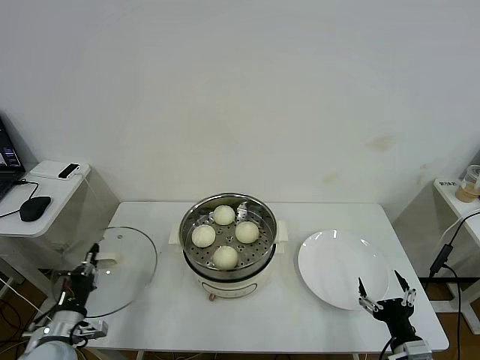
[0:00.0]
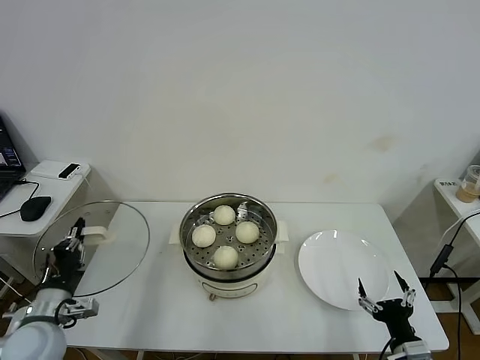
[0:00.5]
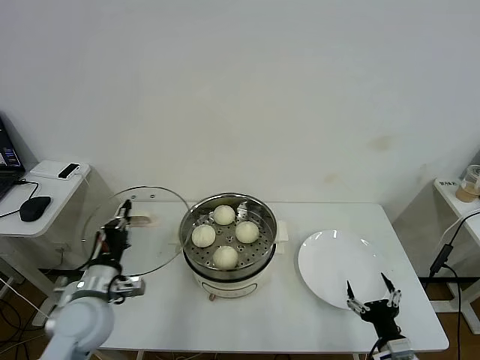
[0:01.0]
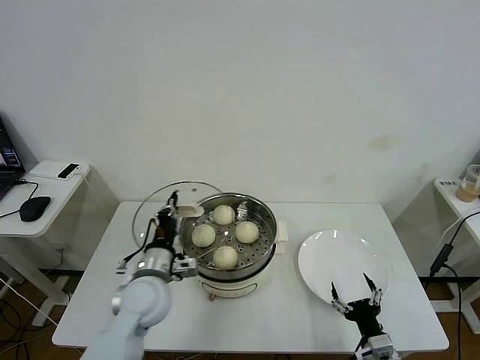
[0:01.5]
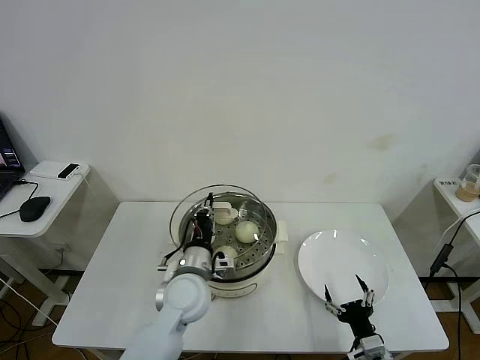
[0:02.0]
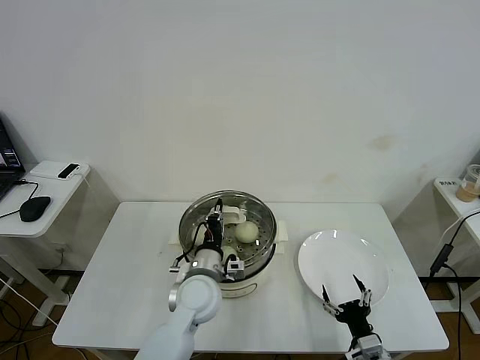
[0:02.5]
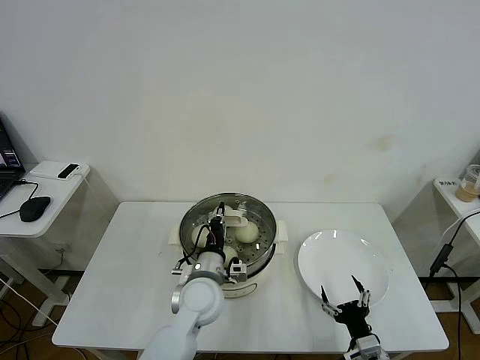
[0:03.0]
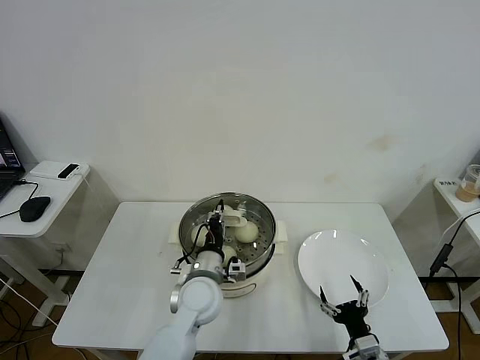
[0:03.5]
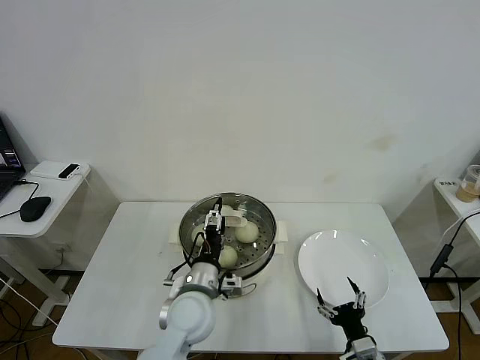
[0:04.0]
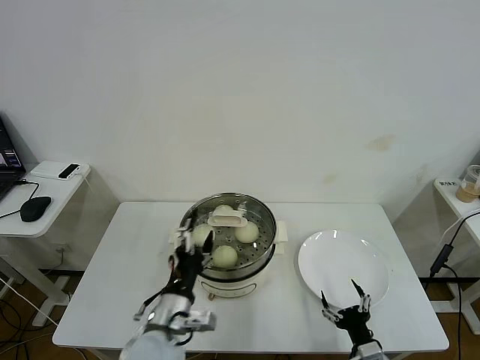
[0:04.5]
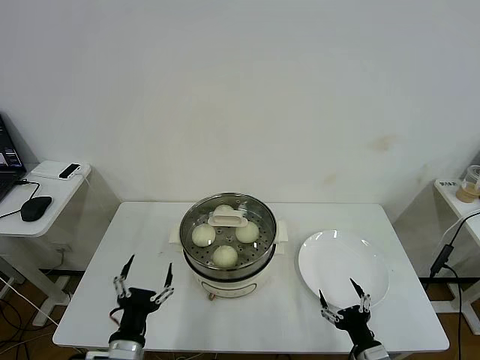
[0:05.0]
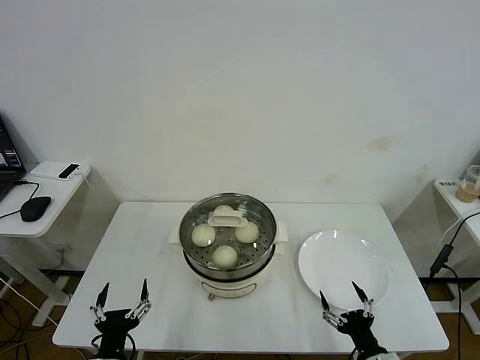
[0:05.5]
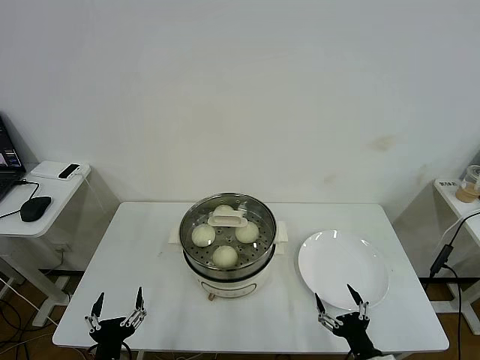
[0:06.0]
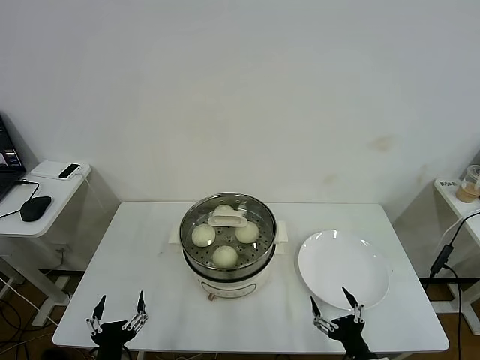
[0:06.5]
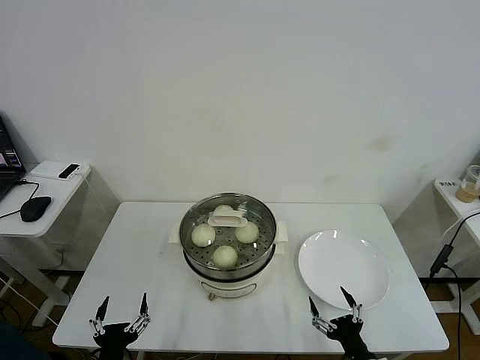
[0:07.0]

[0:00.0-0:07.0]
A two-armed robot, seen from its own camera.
Task of the whole recording: take steamed baozi put them in steamer then cover it.
Step, 0:00.0 to 0:03.5: Place the pot lid on the steamer with left gripper.
0:00.0 to 0:02.0: The left gripper heads to the right, covering some 25 cm, while the right gripper ends up some 5 cm from where it was.
0:02.0 to 0:03.5: The grippers stay close to where they were, moving slightly.
0:03.5 to 0:05.0: The left gripper heads backward and to the left, covering roughly 20 cm, and opens.
0:05.0 to 0:07.0: The left gripper goes approximately 5 cm backward.
